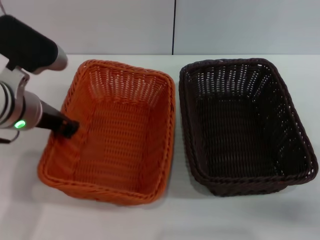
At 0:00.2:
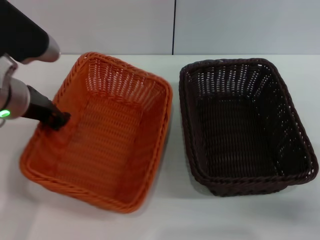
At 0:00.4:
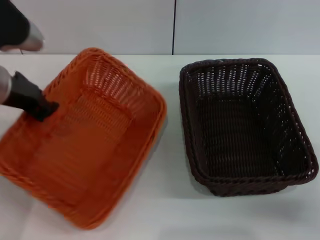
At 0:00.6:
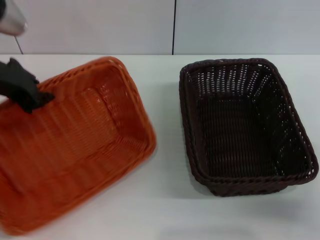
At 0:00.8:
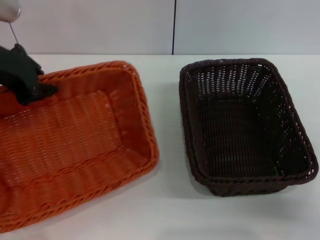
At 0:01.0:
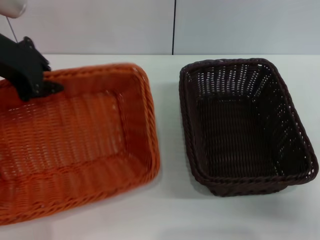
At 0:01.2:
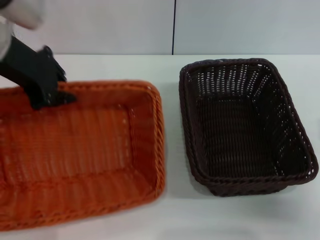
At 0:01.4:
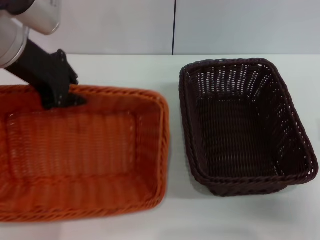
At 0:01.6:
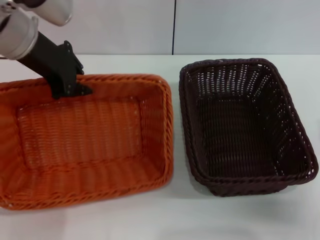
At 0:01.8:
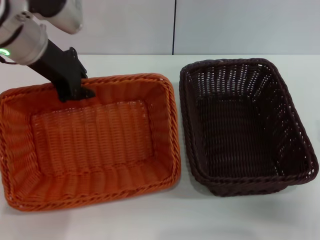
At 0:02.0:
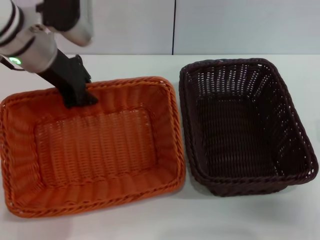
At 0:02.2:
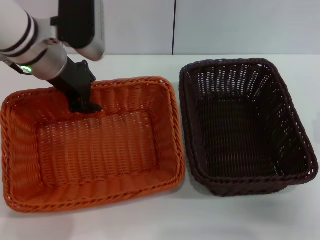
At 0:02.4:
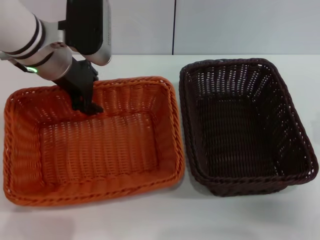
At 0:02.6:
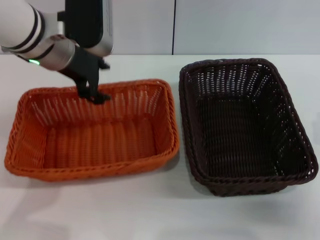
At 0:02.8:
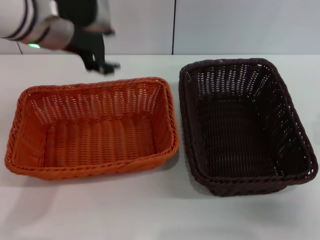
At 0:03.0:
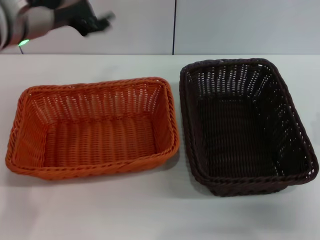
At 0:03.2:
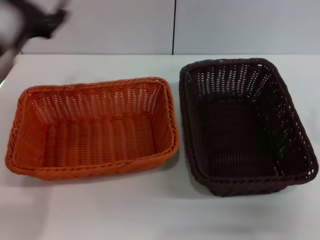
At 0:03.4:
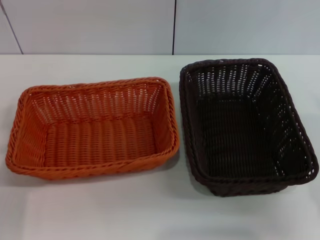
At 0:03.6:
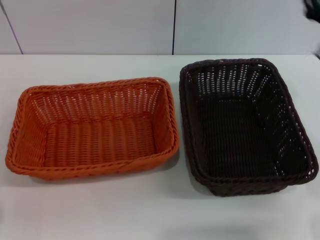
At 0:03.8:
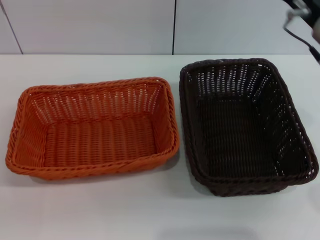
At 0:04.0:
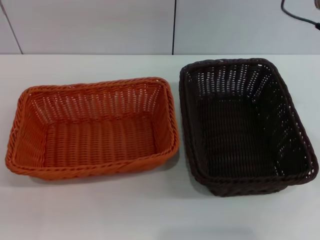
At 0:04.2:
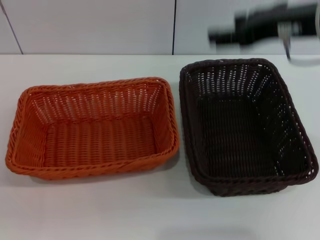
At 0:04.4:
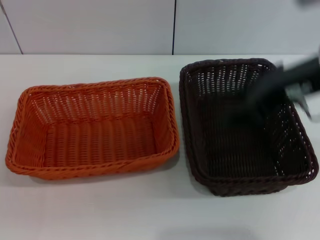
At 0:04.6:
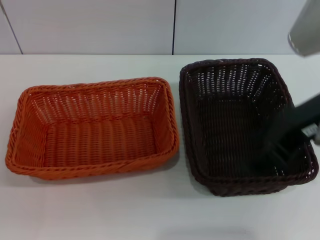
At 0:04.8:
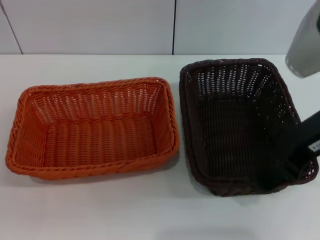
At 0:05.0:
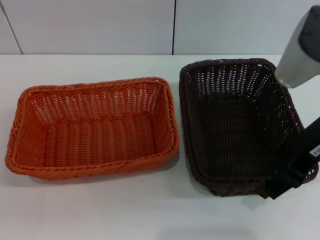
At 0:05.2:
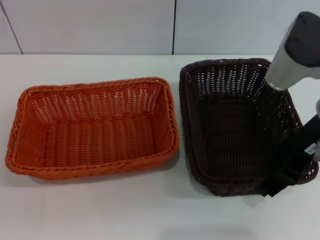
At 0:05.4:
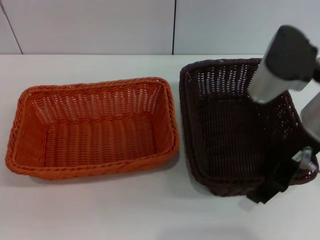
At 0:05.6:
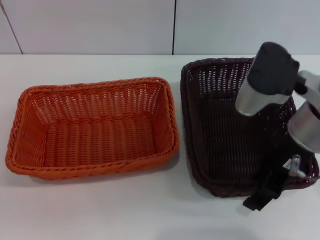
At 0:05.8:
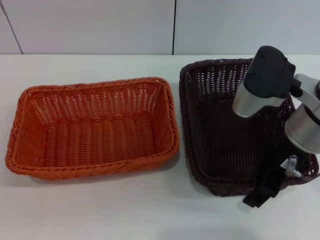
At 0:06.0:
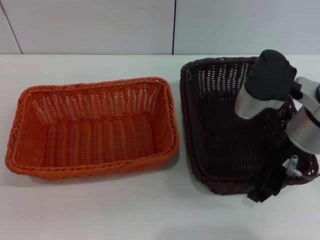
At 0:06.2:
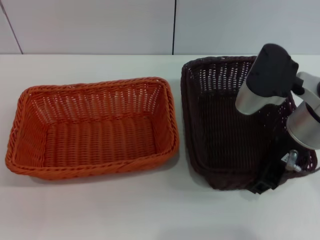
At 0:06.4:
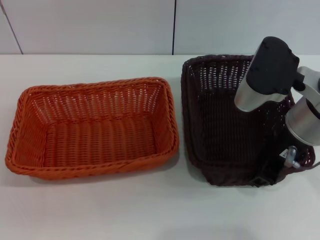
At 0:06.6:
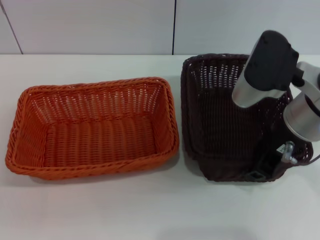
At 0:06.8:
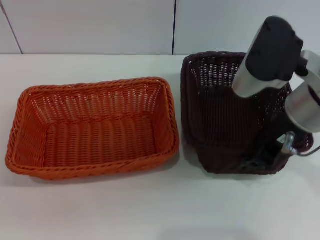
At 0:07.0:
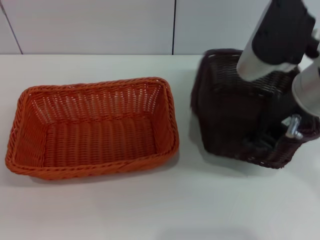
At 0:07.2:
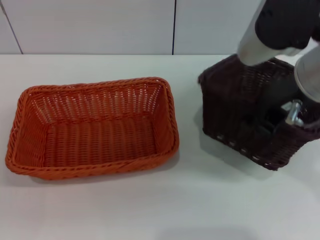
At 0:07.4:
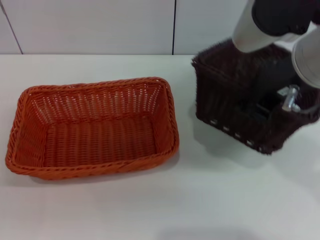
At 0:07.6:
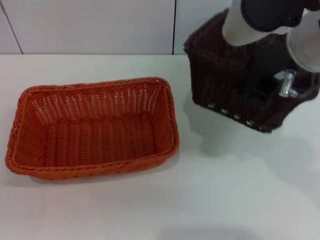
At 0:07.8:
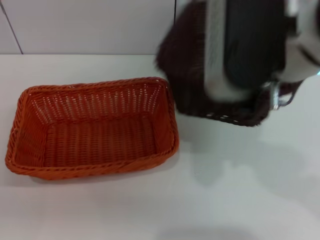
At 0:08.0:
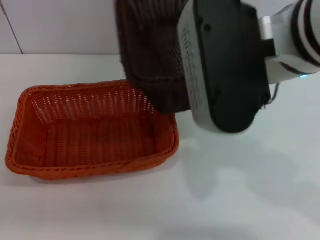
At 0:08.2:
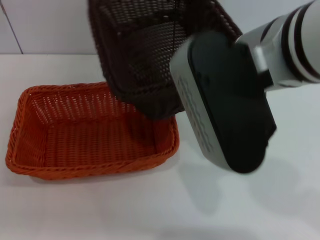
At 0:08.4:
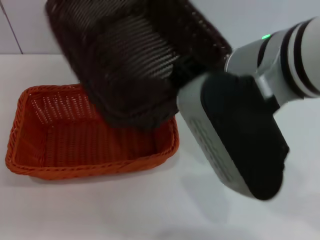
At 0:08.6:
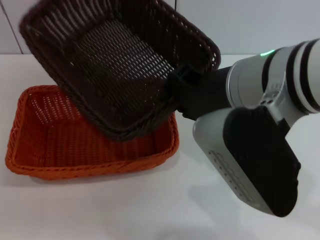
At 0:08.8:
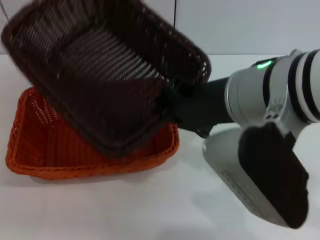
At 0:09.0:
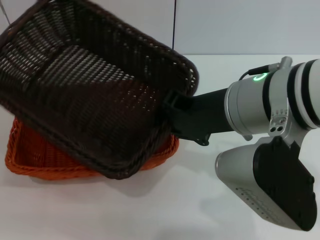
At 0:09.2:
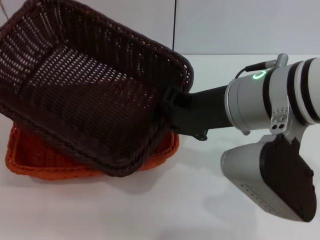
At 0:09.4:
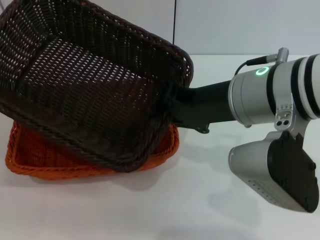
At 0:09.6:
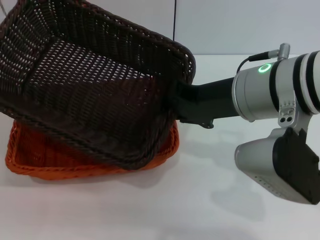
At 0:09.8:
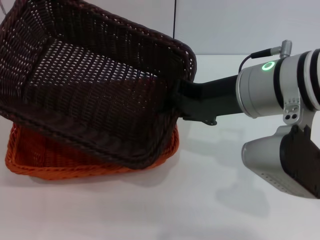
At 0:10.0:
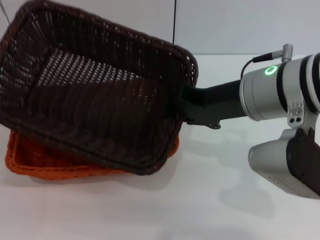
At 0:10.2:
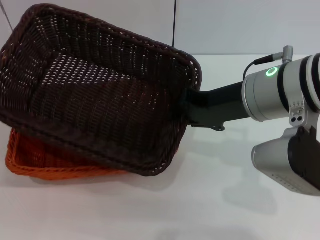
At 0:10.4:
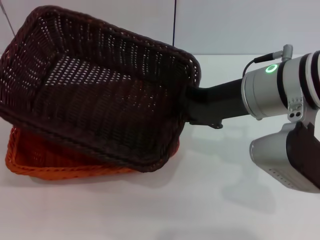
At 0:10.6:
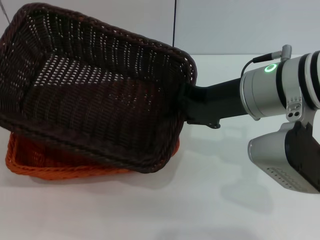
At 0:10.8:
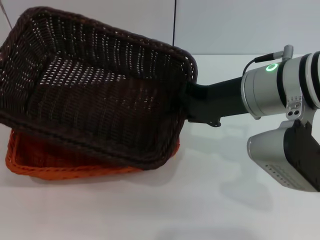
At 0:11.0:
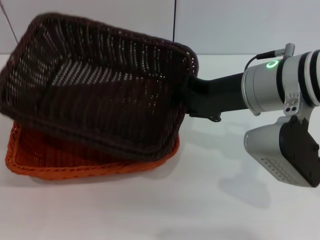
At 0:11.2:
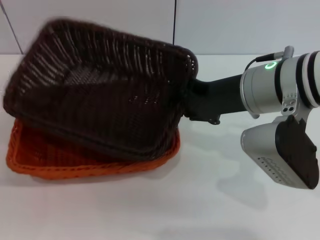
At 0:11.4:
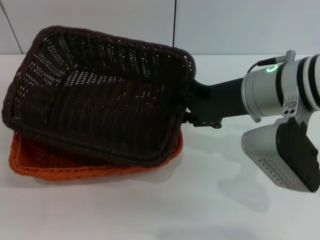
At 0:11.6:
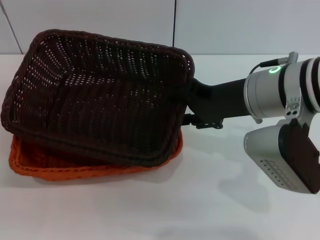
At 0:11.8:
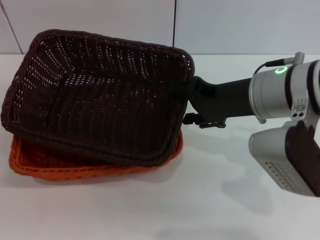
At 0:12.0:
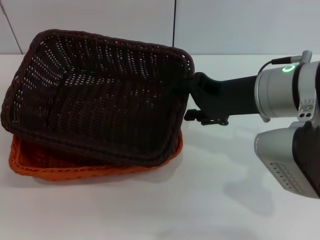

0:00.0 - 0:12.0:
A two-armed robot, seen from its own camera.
Step, 0:00.6 - 0:02.4: Place the light basket in the center of view with the left gripper.
Step, 0:02.8 - 0:07.4: Pick up the dark basket with the right gripper.
0:00.0 - 0:01.6: The left gripper shifts some 10 cm upward and forward.
0:01.6 - 0:03.0: The left gripper opens.
0:03.0 - 0:04.4: The left gripper travels downward, backward and to the left by roughly 35 cm; the right gripper is displaced upward and to the left by approximately 25 cm.
0:04.4 - 0:06.0: The right gripper goes approximately 10 cm downward.
0:06.0 - 0:07.6: The right gripper shifts approximately 10 cm upward, and closes.
0:07.6 - 0:09.0: The right gripper is displaced downward by about 5 cm.
0:09.0 - 0:10.4: The right gripper ends up roughly 5 cm from where it was.
0:10.4 - 0:12.0: The right gripper opens up.

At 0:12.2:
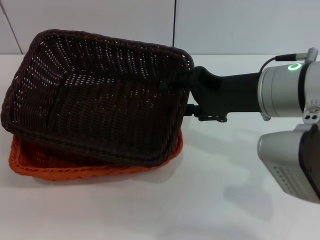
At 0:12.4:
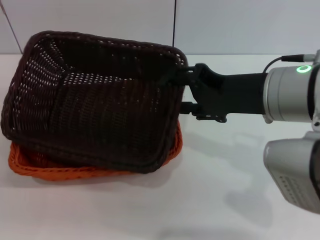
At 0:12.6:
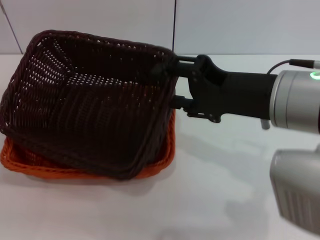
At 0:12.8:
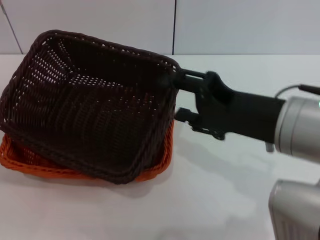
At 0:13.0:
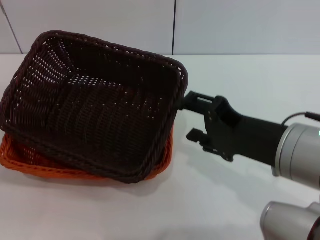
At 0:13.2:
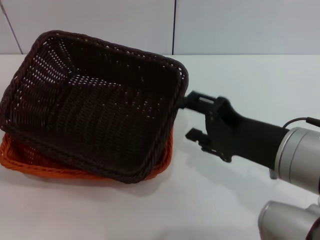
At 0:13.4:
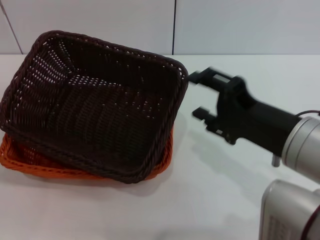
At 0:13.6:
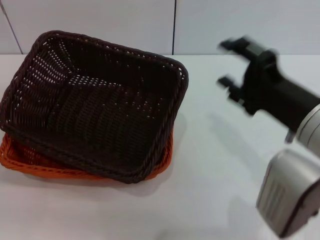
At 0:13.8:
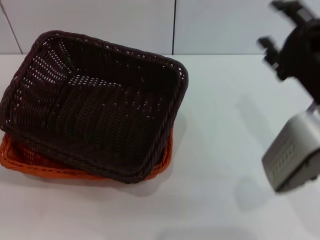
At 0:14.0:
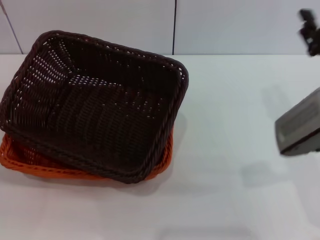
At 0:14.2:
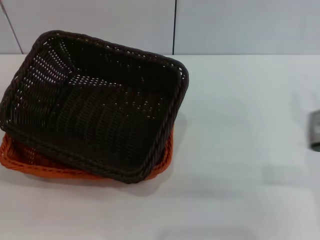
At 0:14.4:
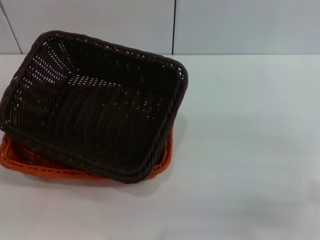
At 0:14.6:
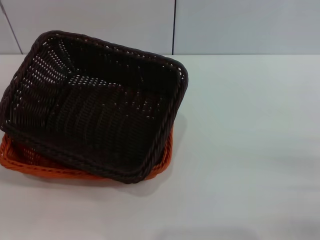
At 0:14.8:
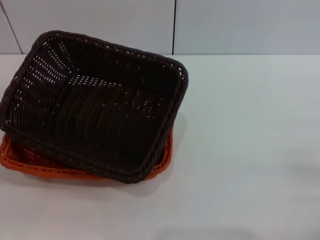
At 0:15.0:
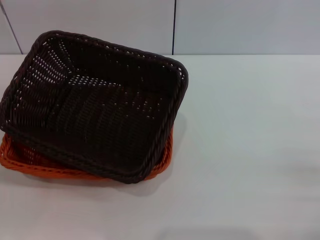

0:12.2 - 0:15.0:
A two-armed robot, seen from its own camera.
0:12.2 - 0:13.6: The right gripper shifts approximately 5 cm backward.
0:13.6 - 0:15.0: The right gripper moves to the right and downward, some 25 cm.
